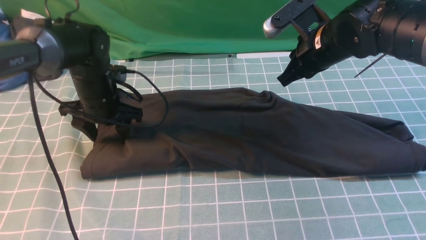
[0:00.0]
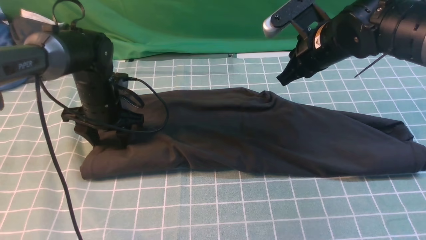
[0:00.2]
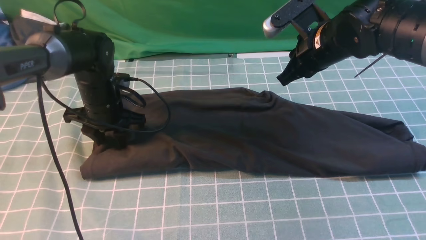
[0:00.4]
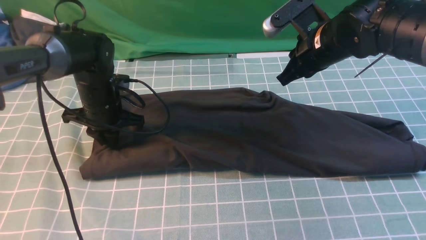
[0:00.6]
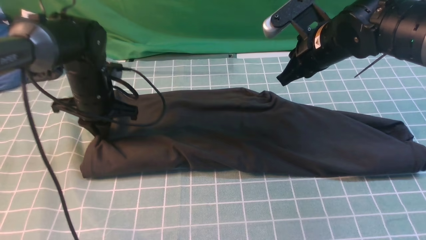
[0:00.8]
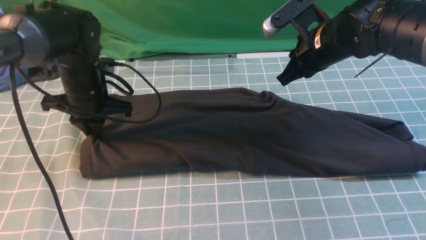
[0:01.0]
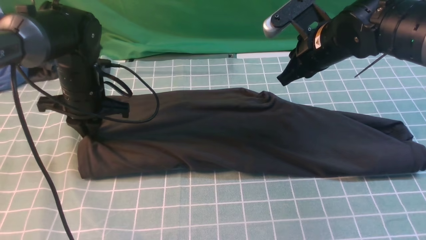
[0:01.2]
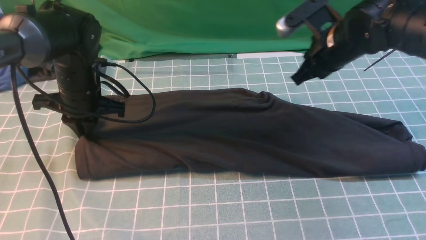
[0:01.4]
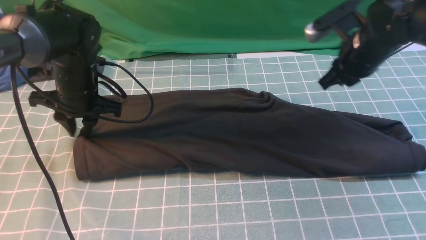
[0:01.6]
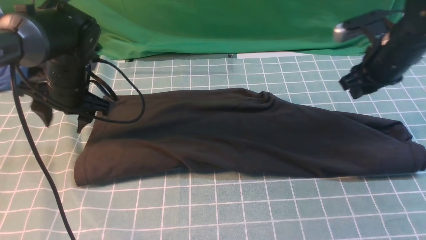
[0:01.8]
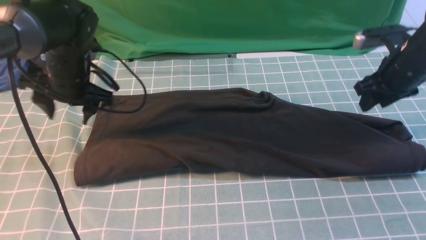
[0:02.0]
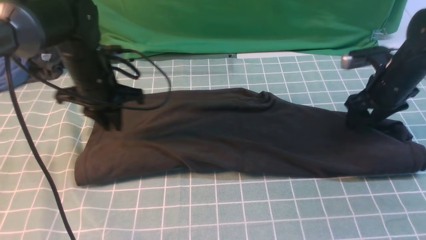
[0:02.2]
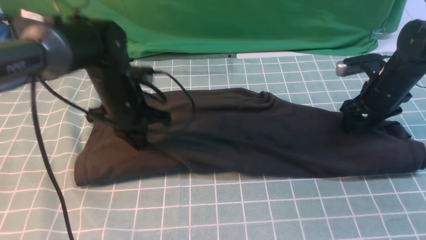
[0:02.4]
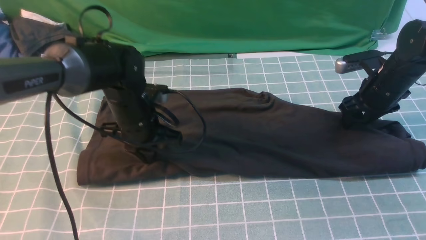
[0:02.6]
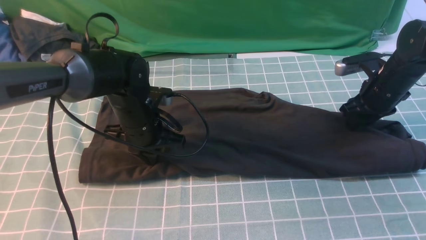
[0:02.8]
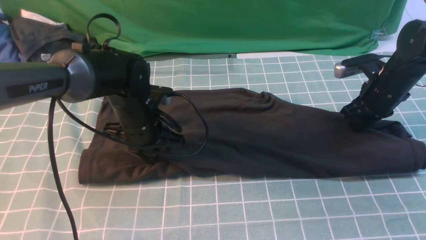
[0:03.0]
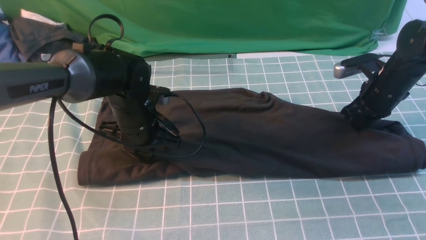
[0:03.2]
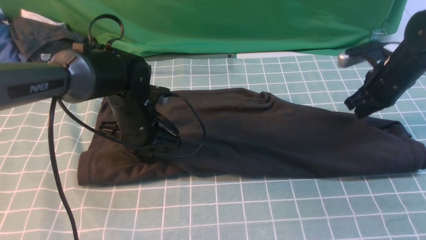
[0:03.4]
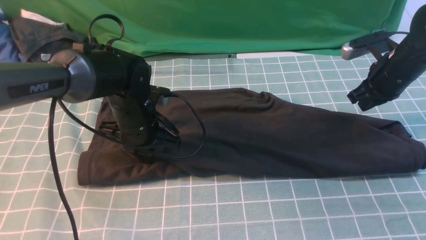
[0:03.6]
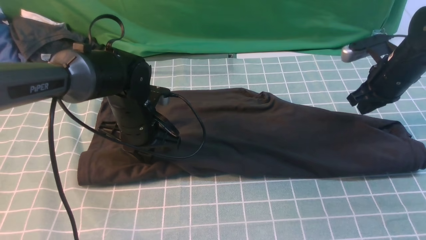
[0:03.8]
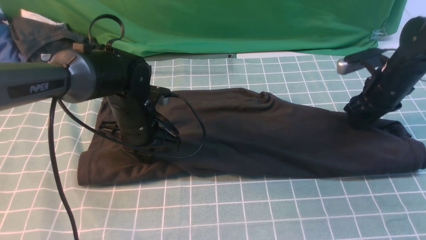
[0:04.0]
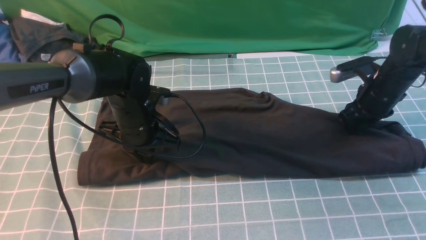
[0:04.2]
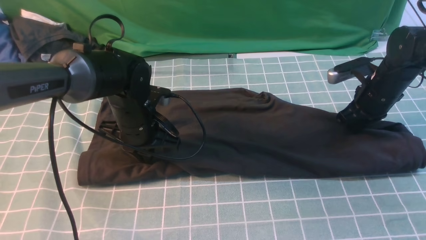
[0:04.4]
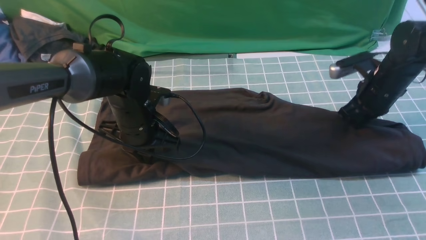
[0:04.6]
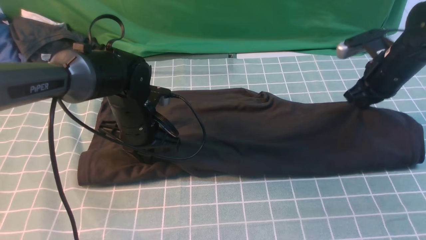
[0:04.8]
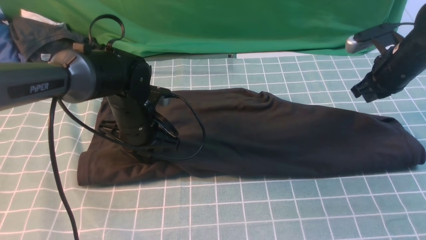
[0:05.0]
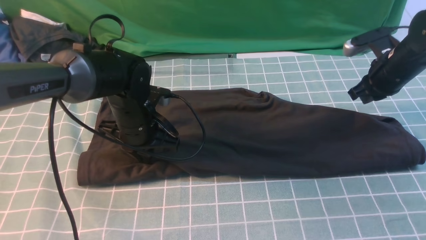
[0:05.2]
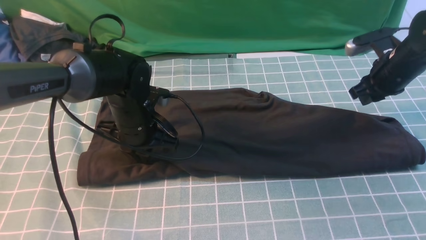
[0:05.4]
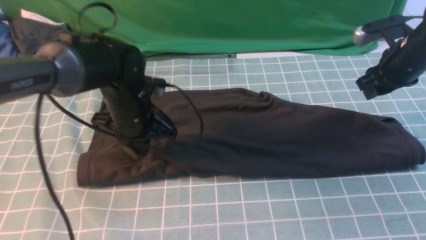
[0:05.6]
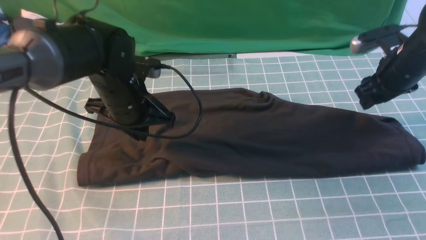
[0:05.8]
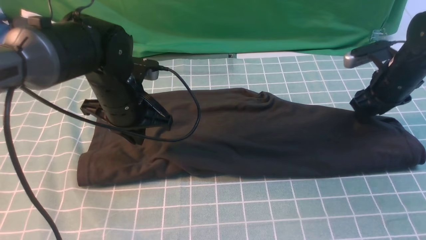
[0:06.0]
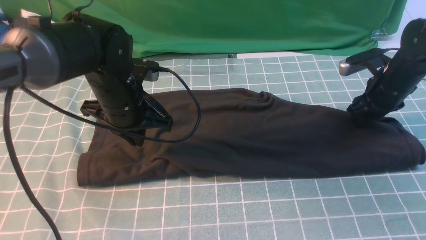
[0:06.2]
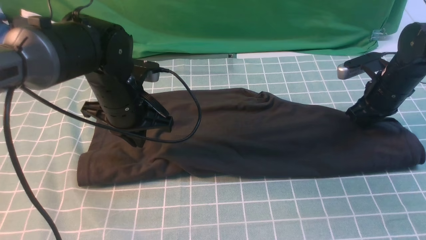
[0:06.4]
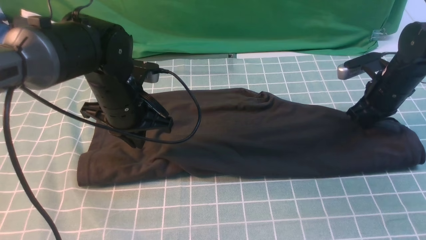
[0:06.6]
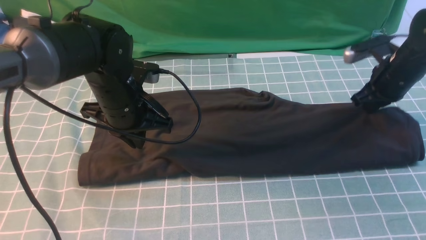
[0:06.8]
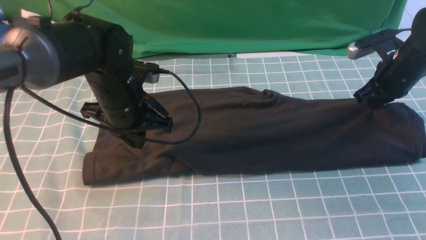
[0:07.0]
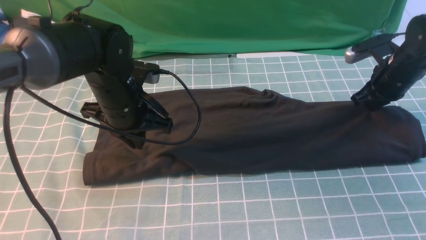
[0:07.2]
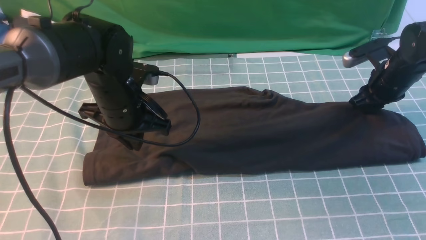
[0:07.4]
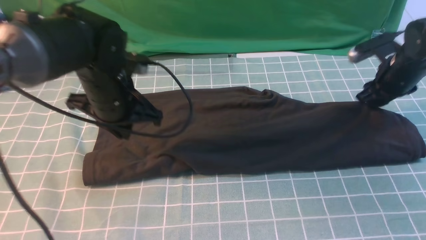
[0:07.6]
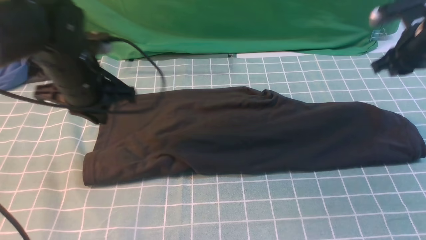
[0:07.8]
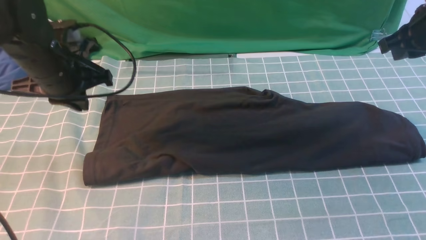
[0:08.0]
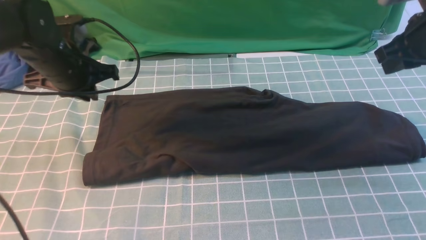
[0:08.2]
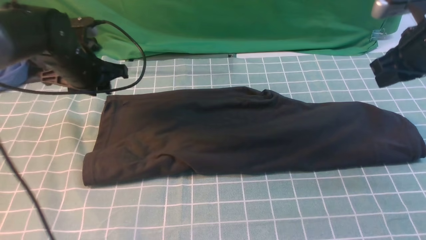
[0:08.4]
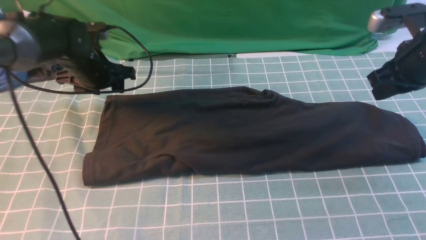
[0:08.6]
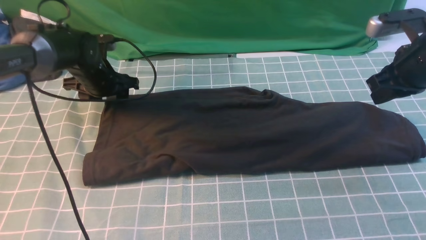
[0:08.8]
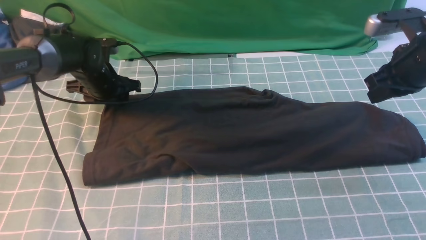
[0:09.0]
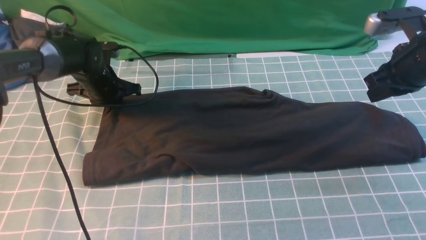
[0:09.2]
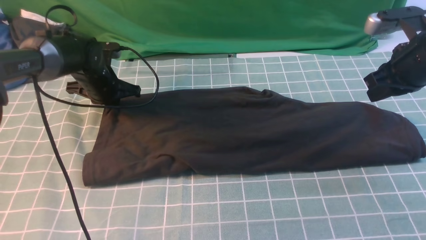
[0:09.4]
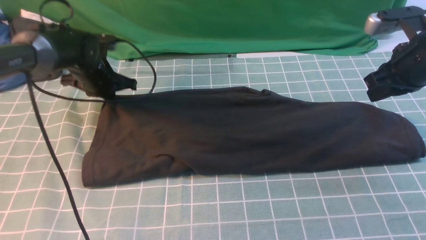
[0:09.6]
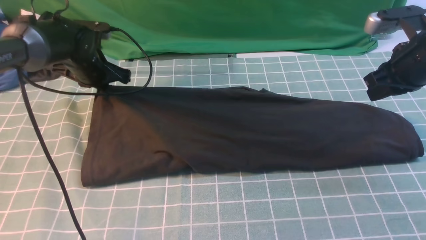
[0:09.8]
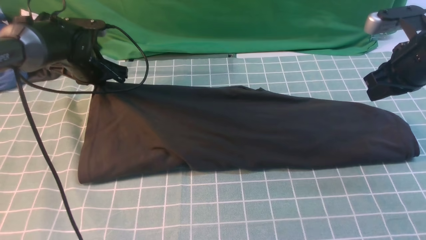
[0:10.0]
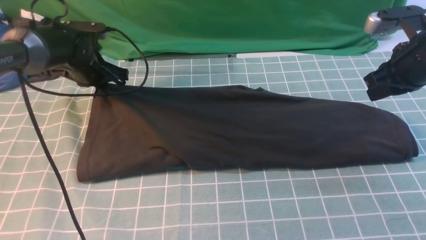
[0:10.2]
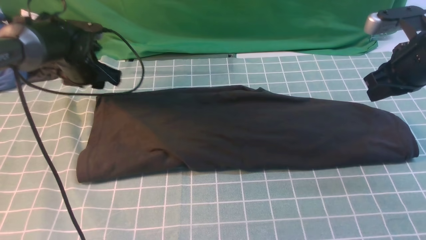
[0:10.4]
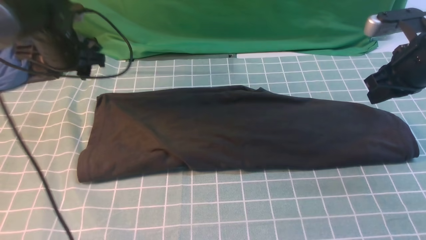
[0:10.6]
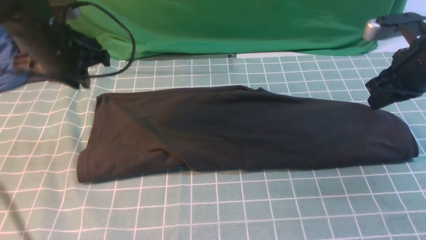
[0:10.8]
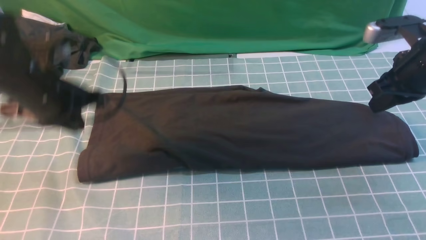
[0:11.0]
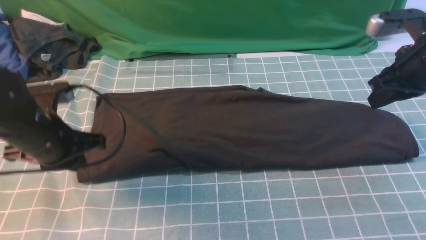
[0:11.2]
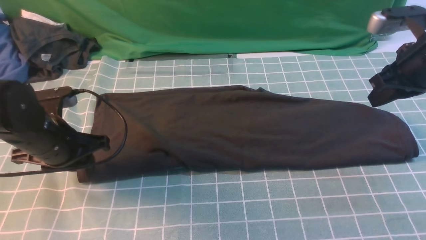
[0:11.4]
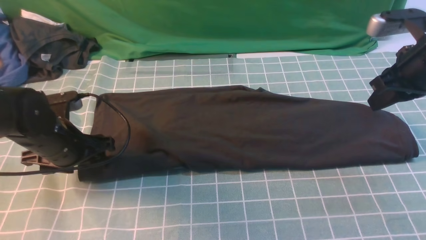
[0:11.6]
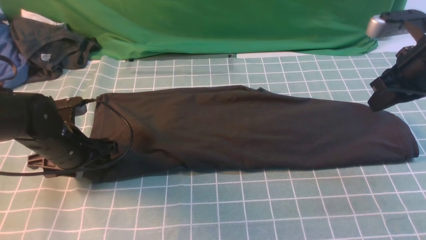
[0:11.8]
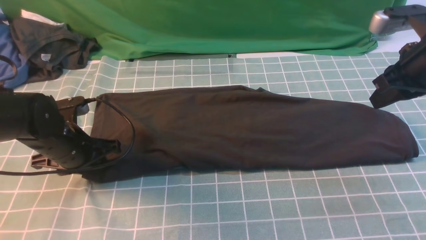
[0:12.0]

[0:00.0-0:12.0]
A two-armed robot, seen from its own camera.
Step, 0:00.0 to 0:08.0: use both arms to drag the lower edge of the fabric forward and fold it over the upper edge.
0:00.0 to 0:01.6: The left gripper closes up. Meanwhile the right gripper shifts some 5 cm to the right.
0:01.6 to 0:03.0: The left gripper is displaced to the right by roughly 10 cm, and closes; the right gripper moves downward and to the right, some 10 cm, and opens, then closes again.
0:03.0 to 0:04.4: The grippers make only small movements.
0:04.4 to 0:06.0: The right gripper opens its fingers. Meanwhile the left gripper is displaced upward by some 5 cm.
0:06.0 to 0:07.6: The right gripper closes and opens again.
0:07.6 to 0:09.0: The left gripper travels forward, downward and to the left by roughly 15 cm, and opens its fingers. The right gripper is displaced backward and upward by approximately 10 cm, and closes its fingers.
0:09.0 to 0:10.4: The left gripper travels upward by roughly 5 cm, and closes, then opens again.
0:10.4 to 0:12.0: The left gripper shifts about 15 cm backward, and closes, then opens again.

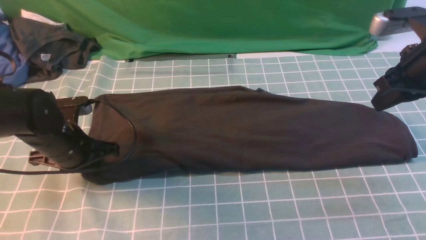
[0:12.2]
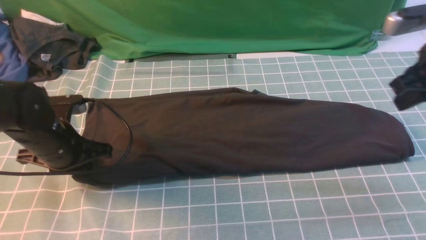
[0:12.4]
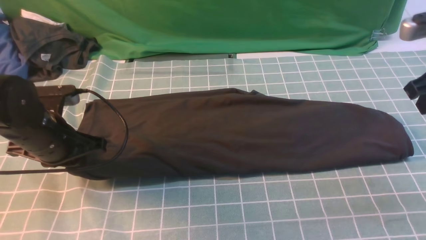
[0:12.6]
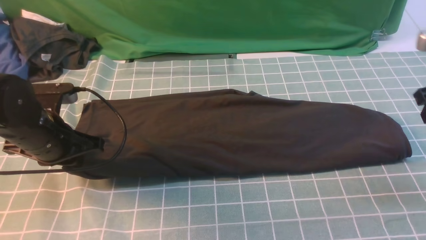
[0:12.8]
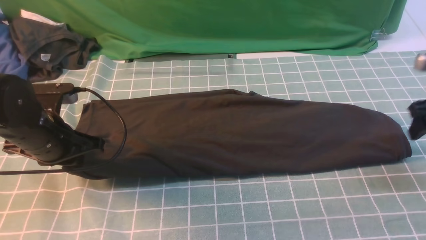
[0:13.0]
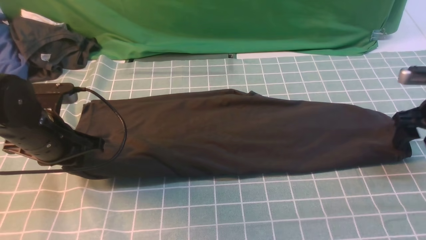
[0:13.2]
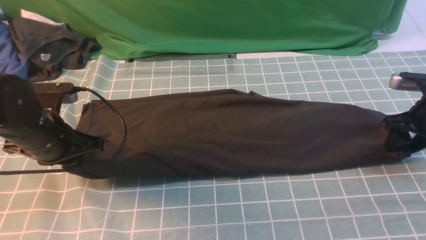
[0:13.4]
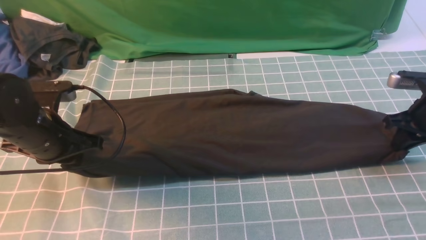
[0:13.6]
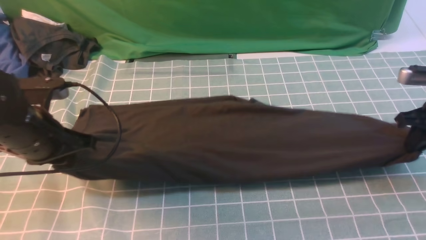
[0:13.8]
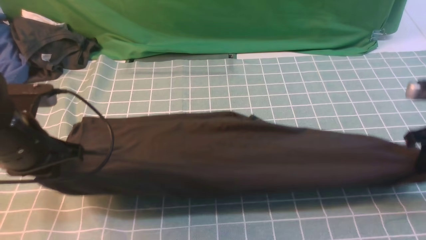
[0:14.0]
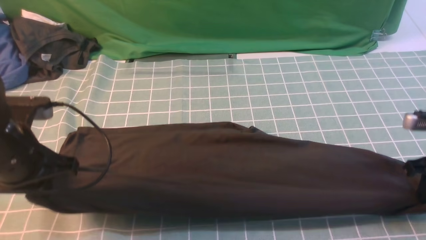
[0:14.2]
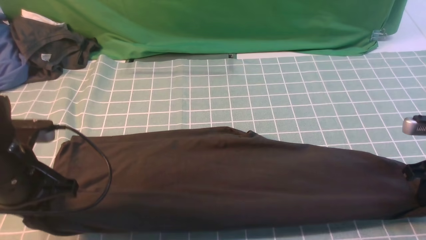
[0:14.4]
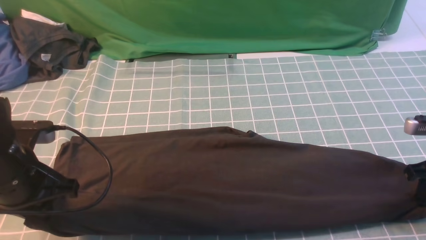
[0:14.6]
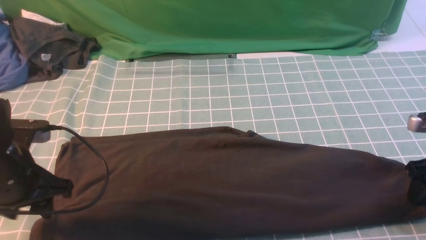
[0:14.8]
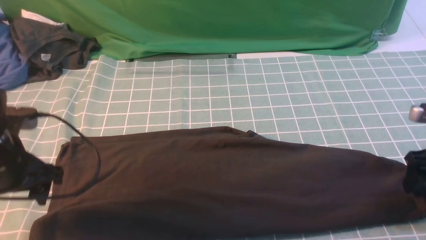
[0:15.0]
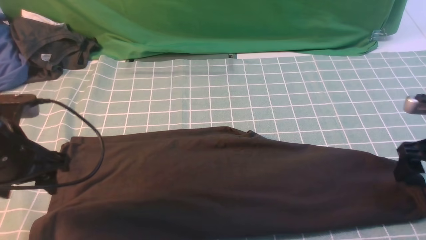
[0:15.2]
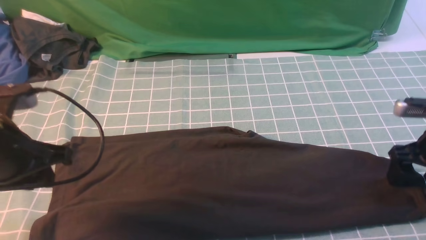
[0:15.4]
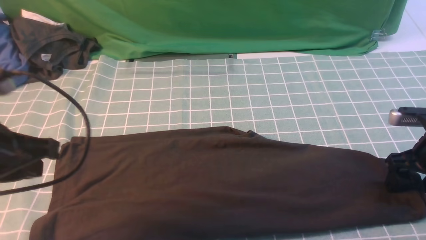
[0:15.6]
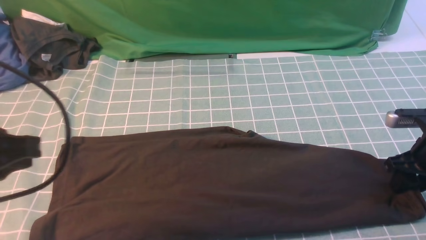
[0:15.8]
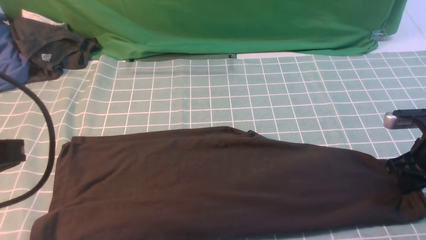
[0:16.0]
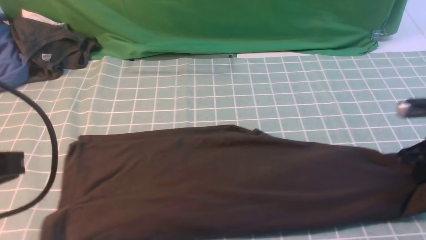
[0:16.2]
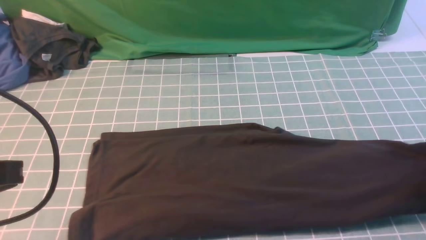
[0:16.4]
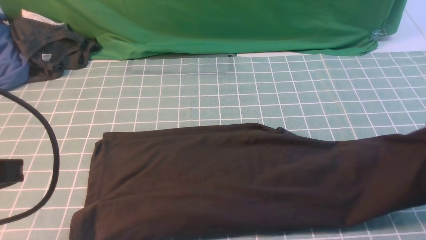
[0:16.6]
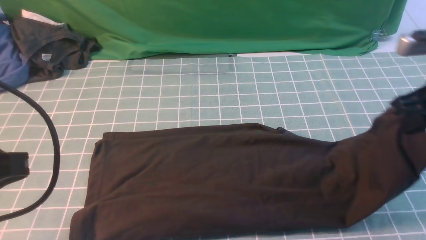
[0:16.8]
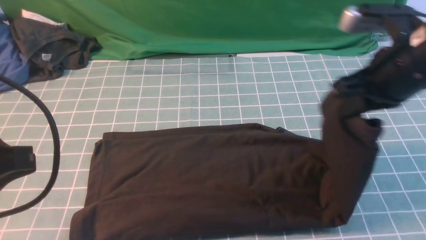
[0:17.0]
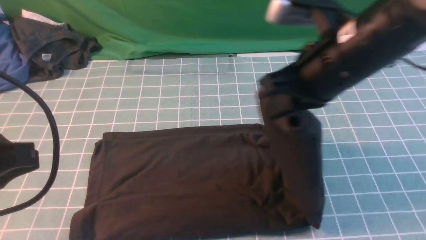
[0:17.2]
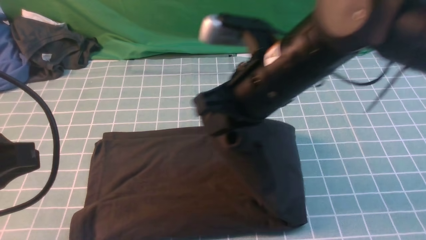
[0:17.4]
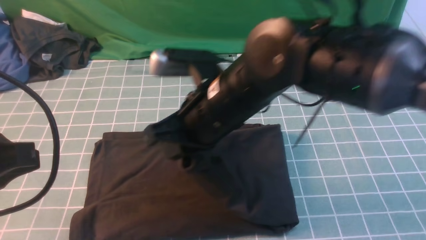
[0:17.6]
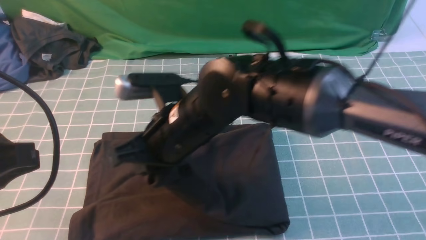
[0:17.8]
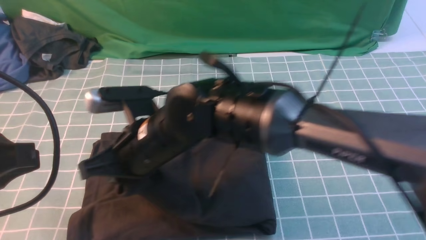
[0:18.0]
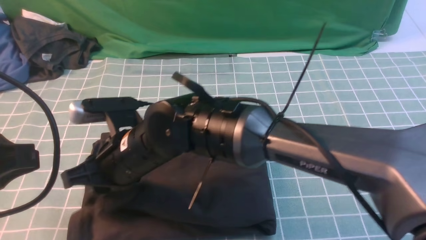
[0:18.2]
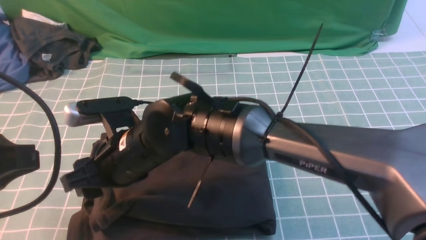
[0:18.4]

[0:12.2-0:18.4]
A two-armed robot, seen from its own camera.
Step, 0:12.2 to 0:16.4: use the right arm to clamp the right edge of the fabric.
0:12.2 to 0:13.8: The right gripper travels downward and to the right by approximately 15 cm, and opens, then closes once more. Meanwhile the left gripper moves upward, about 5 cm.
0:13.8 to 0:15.4: The left gripper heads backward and upward, covering about 10 cm, and opens, then closes once more. Meanwhile the right gripper opens up.
0:15.4 to 0:16.8: The left gripper moves backward and upward, roughly 10 cm, and closes. Meanwhile the right gripper moves upward and to the left, some 15 cm, and closes its fingers.
0:16.8 to 0:18.4: The right gripper goes approximately 35 cm to the left, and opens.
